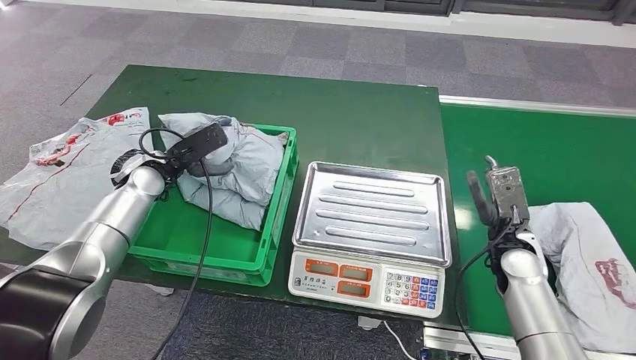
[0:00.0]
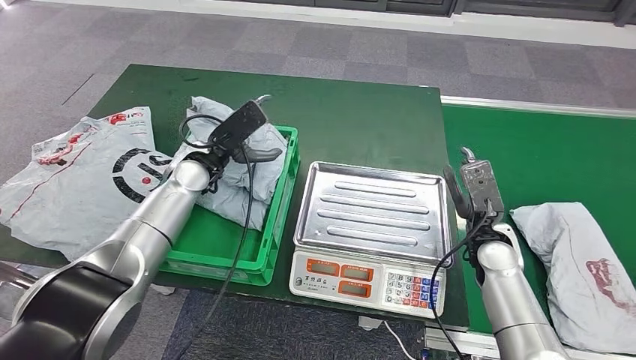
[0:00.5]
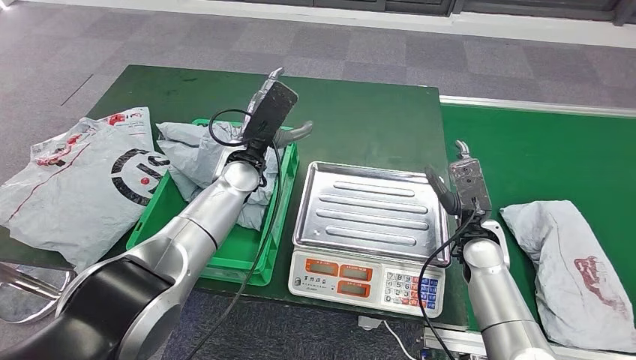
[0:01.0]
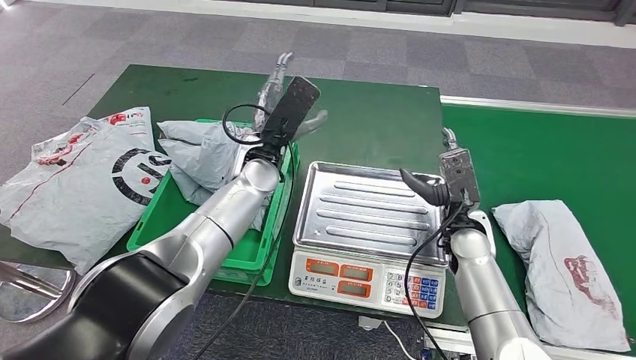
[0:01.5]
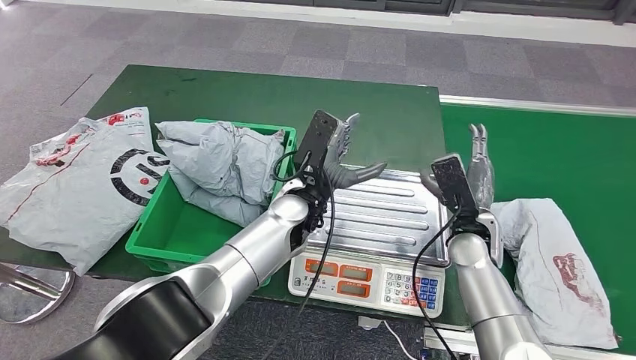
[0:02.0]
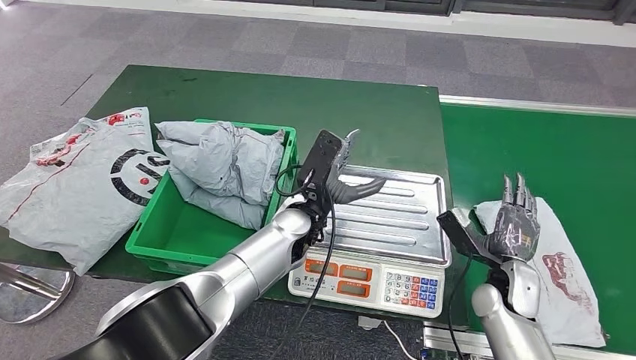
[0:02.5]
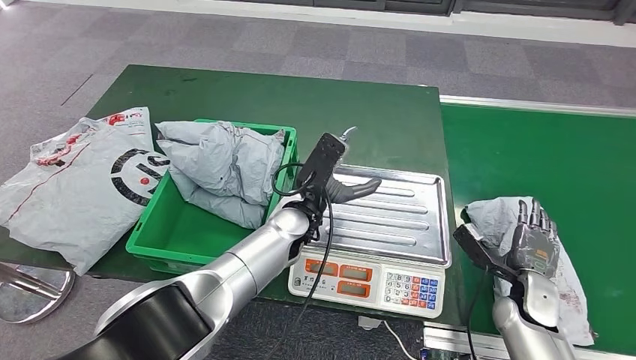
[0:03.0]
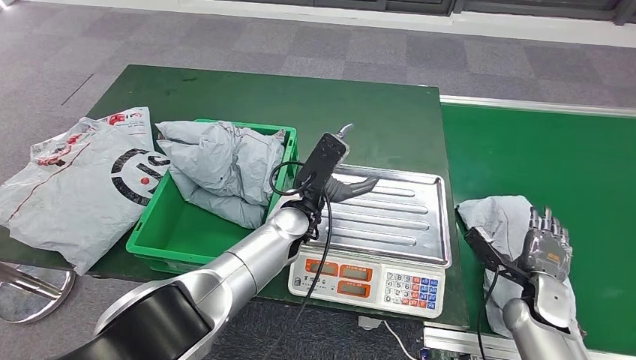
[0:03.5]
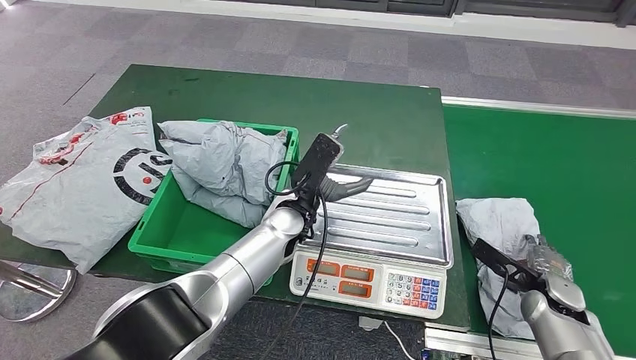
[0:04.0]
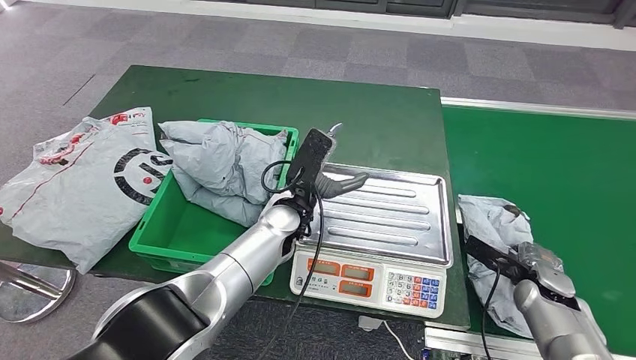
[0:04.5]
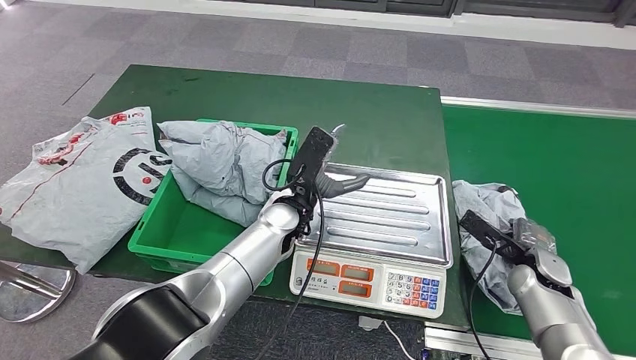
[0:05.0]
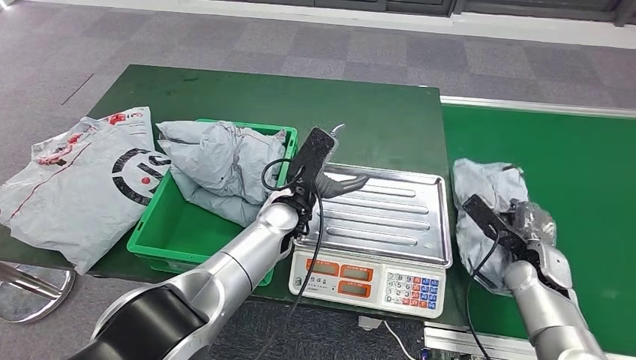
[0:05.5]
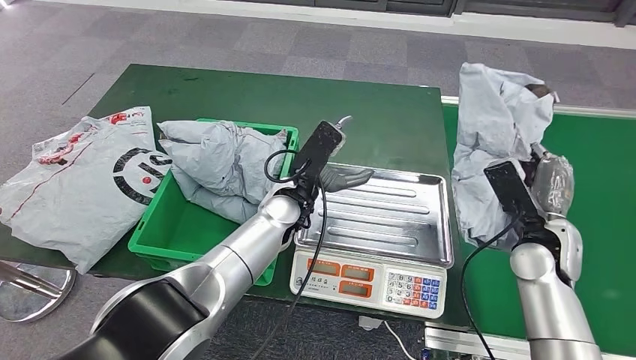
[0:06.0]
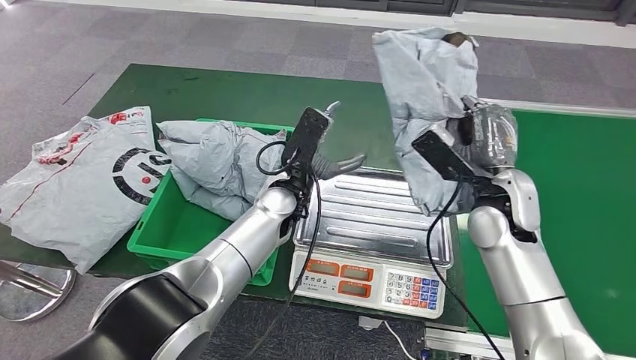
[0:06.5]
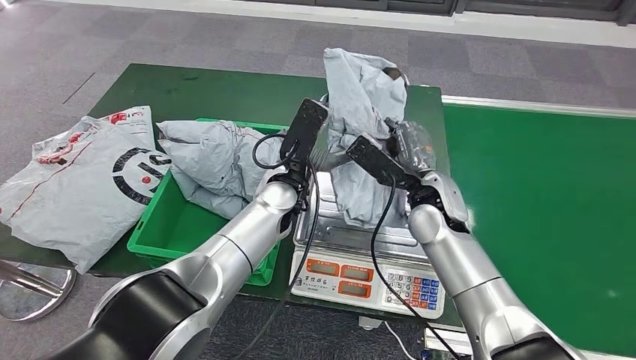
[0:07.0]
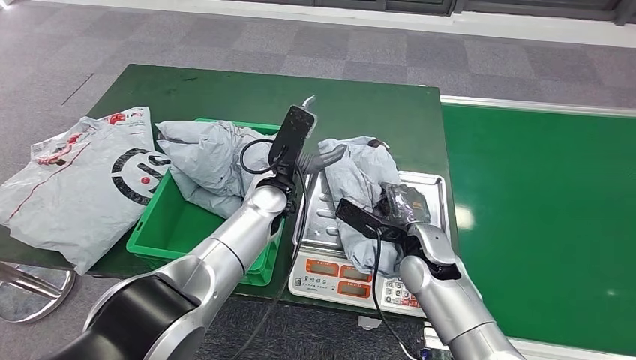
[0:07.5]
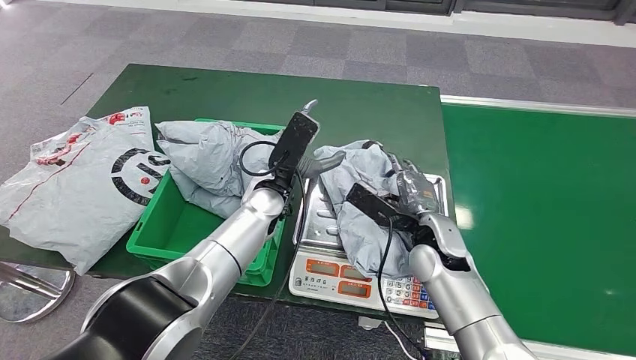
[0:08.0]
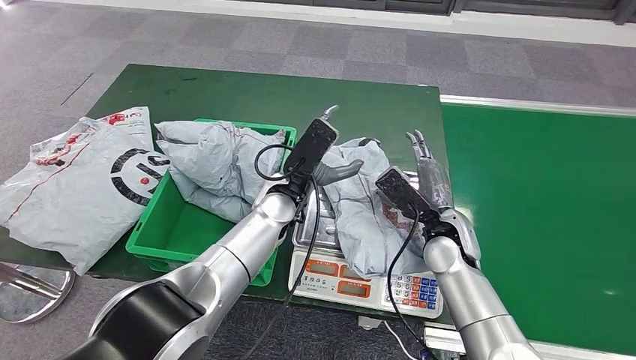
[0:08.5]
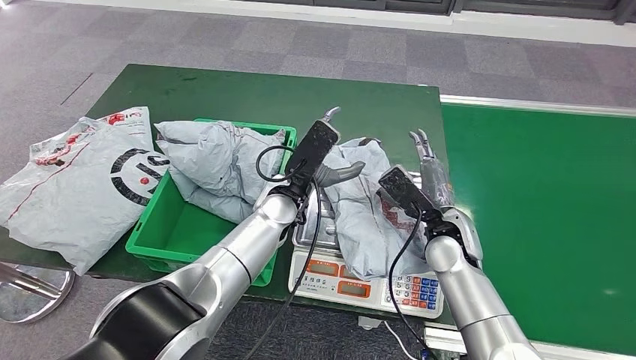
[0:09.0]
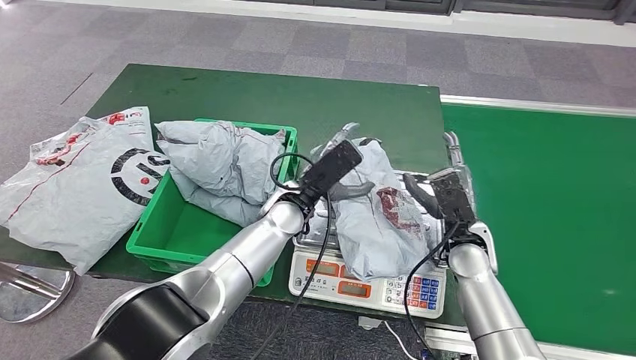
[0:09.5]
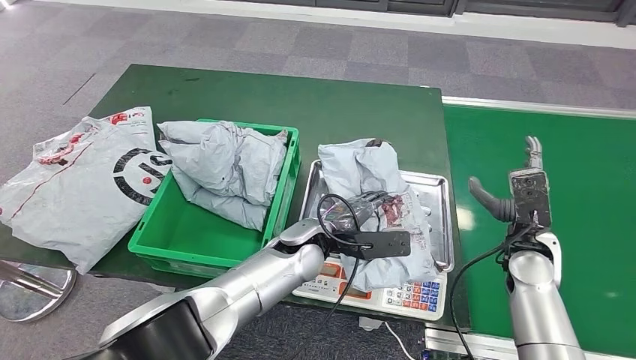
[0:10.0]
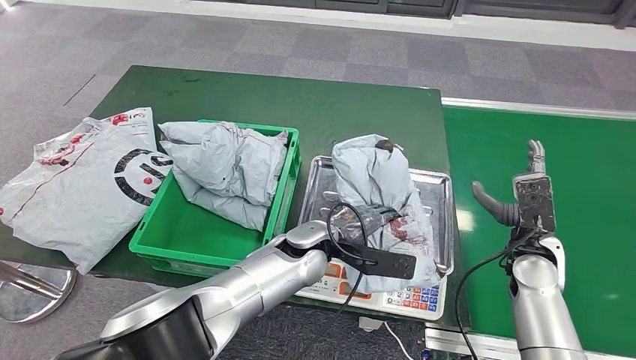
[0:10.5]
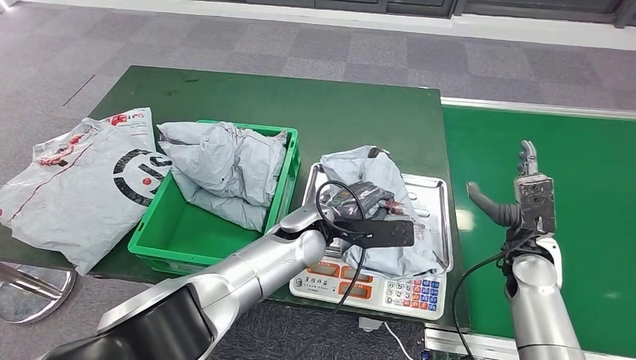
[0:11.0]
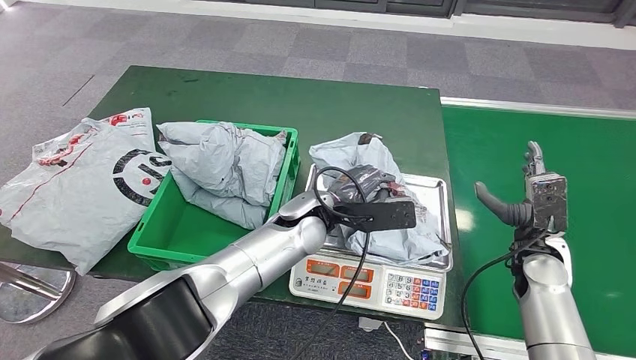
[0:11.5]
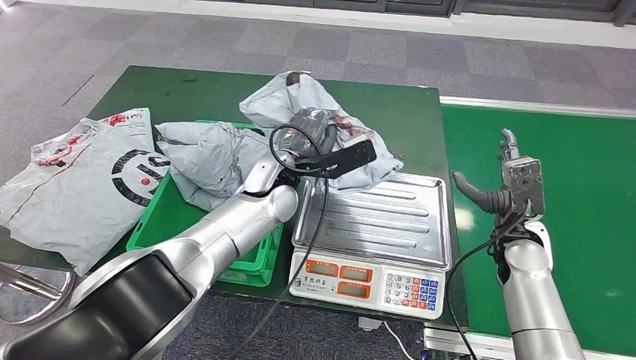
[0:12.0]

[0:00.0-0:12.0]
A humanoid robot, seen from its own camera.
Step, 0:02.0 to 0:05.5: Pick up the parcel from the conveyor belt.
Step, 0:06.0 to 0:09.0: Place the parcel onto the inbound machine.
Step, 0:09.5 to 0:11.5: Pick up the parcel from the inbound machine.

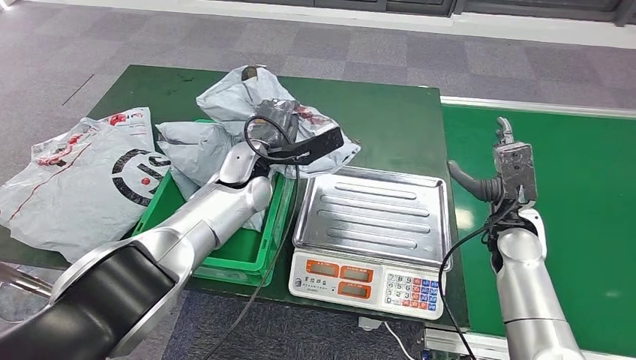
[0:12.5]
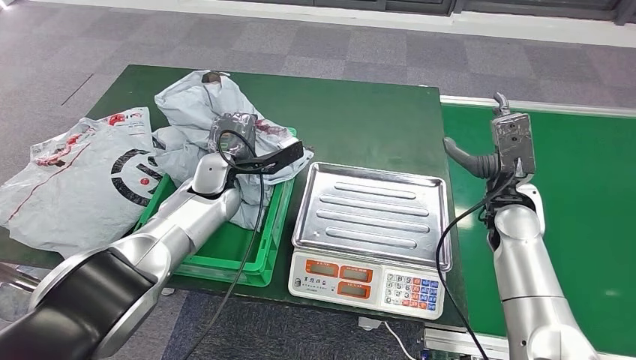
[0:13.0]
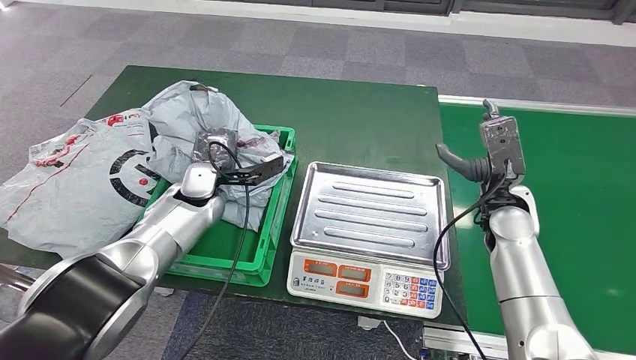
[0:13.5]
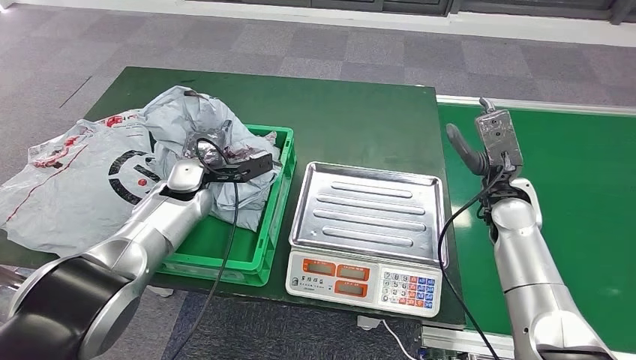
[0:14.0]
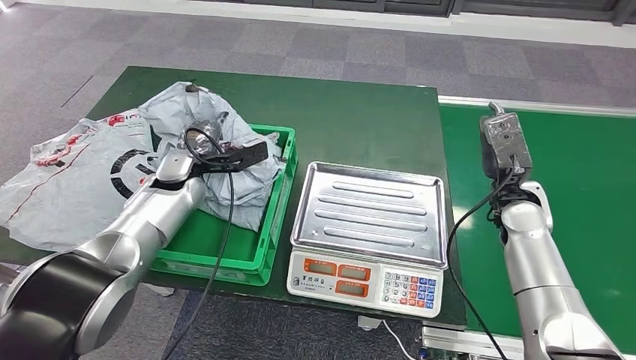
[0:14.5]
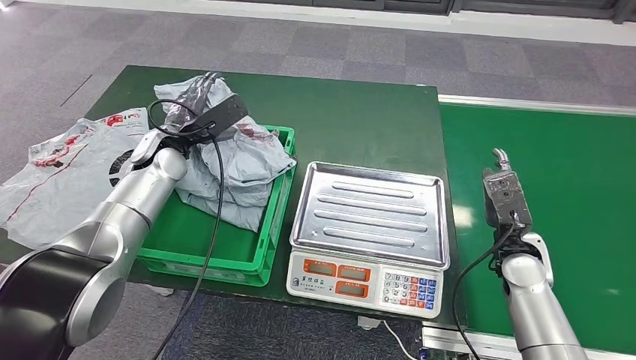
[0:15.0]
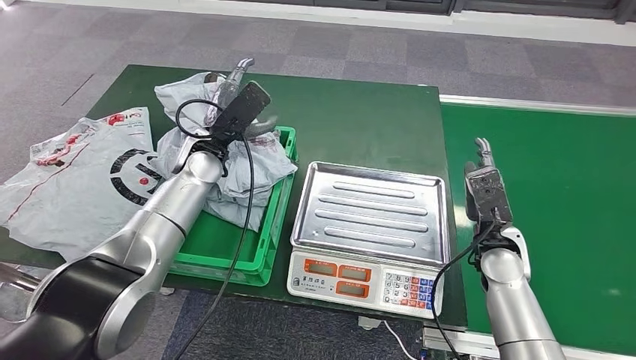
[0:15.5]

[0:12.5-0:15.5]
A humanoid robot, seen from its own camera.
Step, 0:12.5 to 0:15.5: Place the parcel into the delivery box.

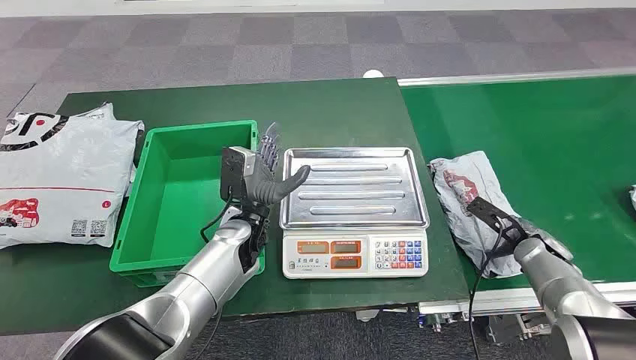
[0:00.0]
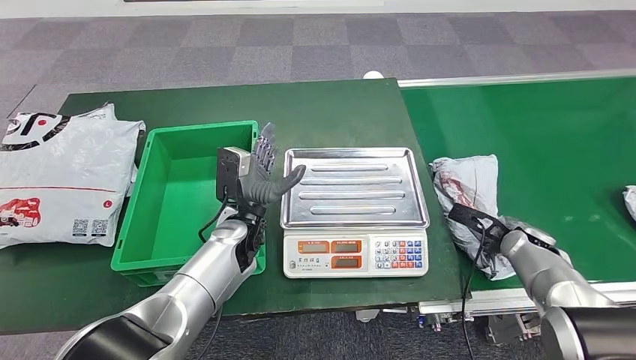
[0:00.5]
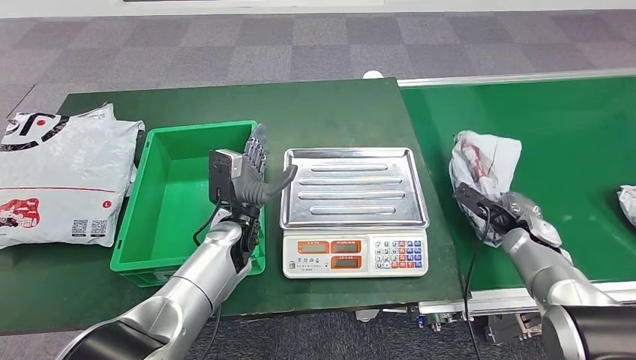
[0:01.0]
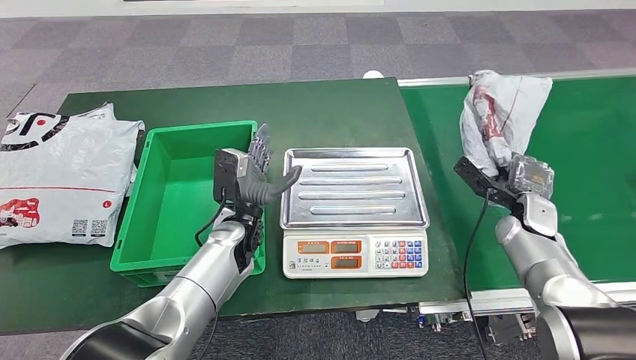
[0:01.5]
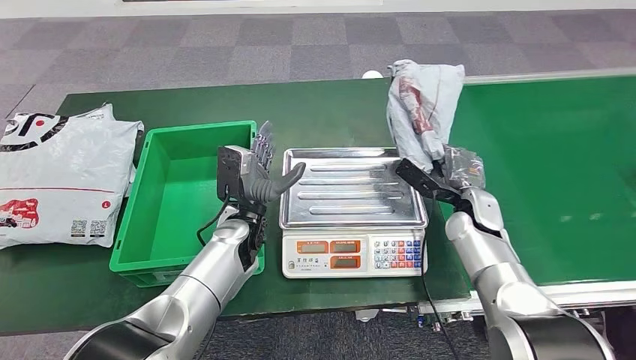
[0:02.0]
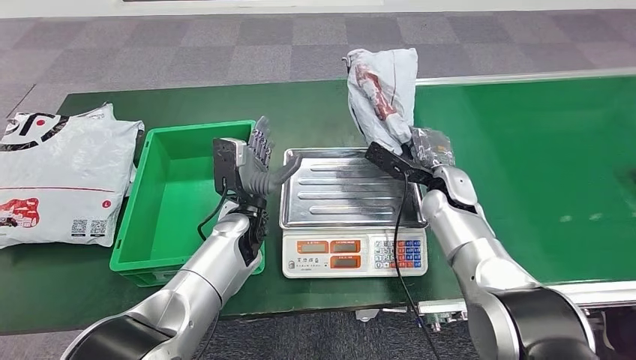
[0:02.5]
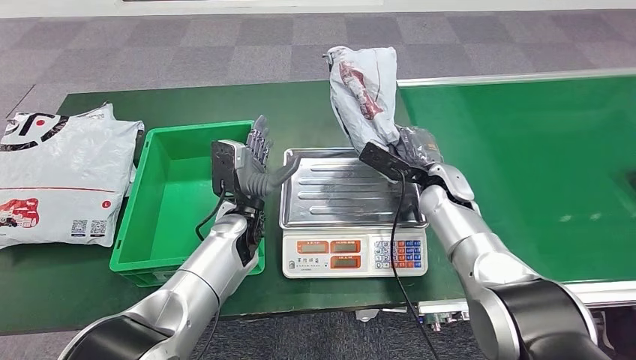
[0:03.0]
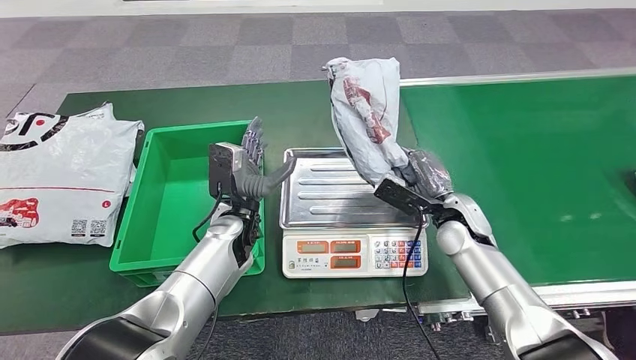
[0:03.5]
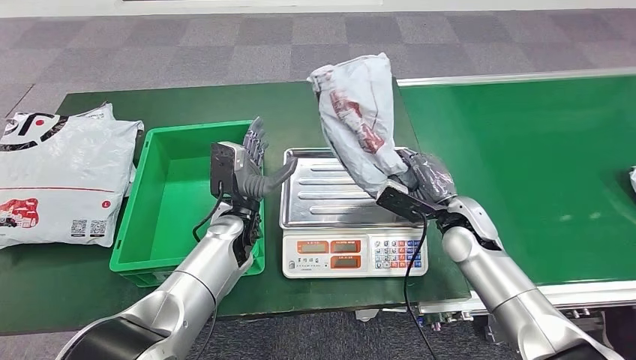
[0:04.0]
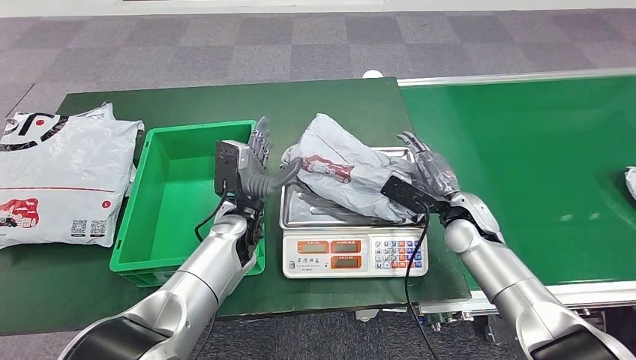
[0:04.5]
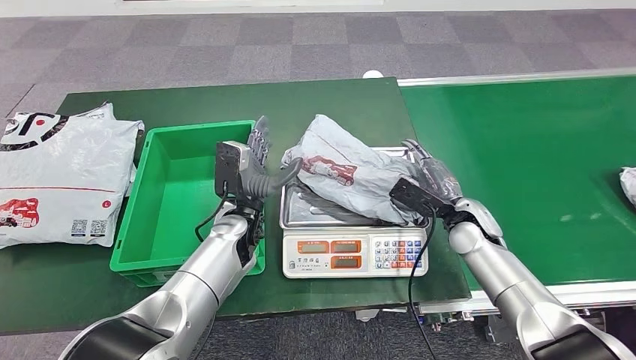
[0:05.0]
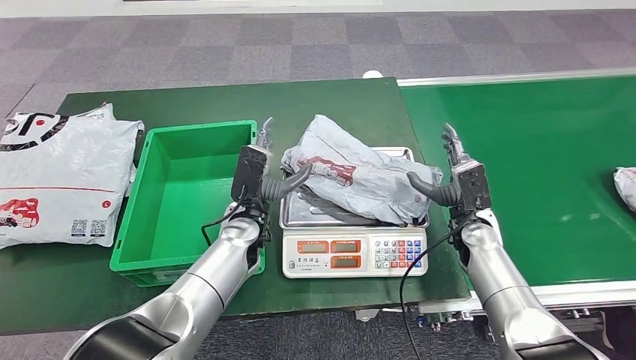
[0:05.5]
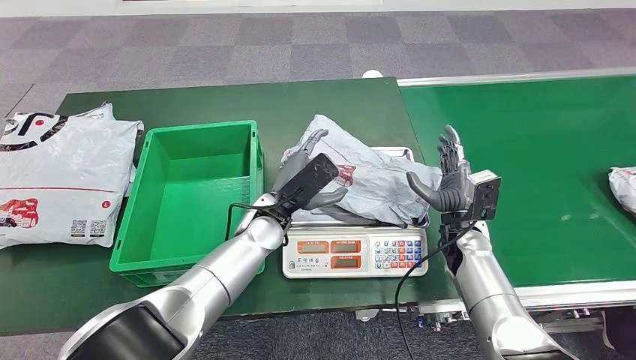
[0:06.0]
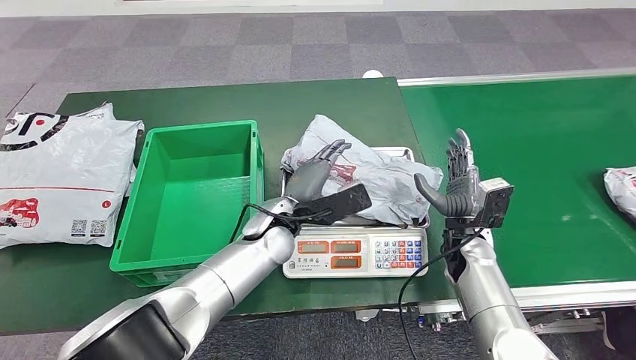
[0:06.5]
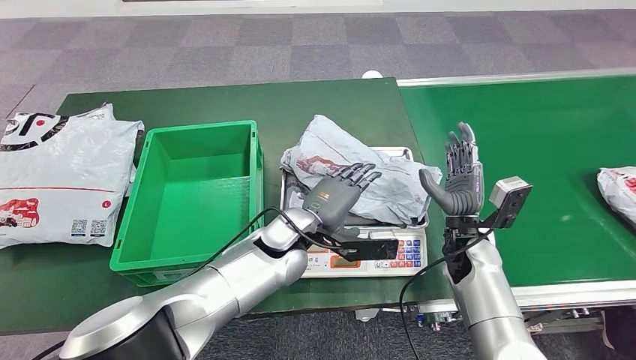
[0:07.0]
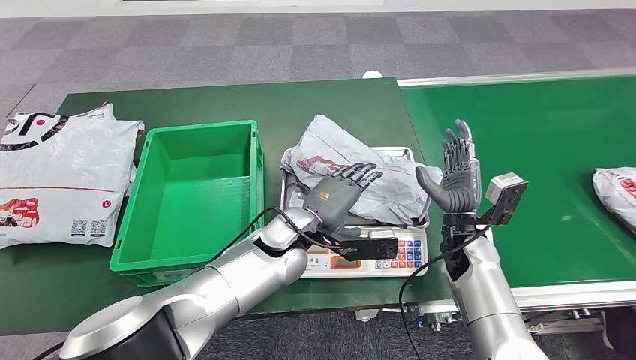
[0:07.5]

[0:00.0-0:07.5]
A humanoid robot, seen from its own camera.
Step, 0:00.0 to 0:01.5: Take the parcel off the conveyor belt.
Step, 0:02.0 to 0:05.5: Place the parcel onto the inbound machine.
0:02.0 to 0:04.0: The right hand changes place by roughly 5 cm.
0:04.0 to 0:05.5: The right hand shifts by roughly 5 cm.
0:05.5 to 0:07.5: The left hand goes approximately 5 cm to the right.
